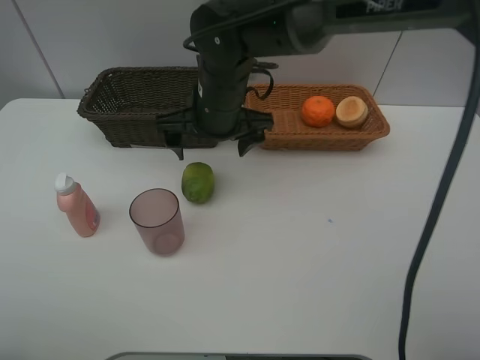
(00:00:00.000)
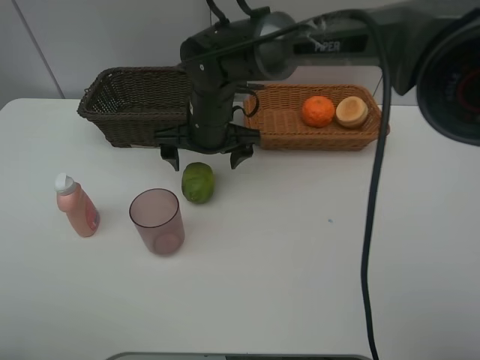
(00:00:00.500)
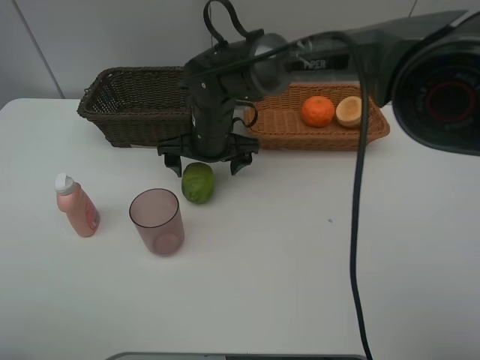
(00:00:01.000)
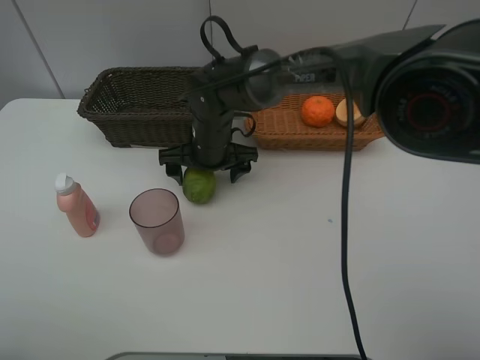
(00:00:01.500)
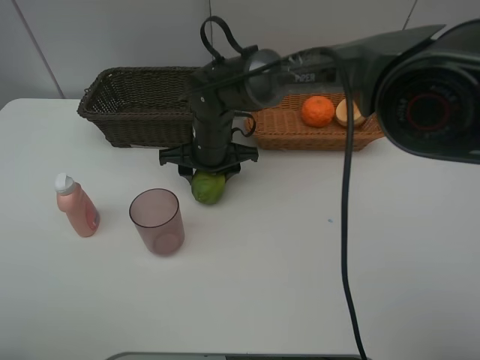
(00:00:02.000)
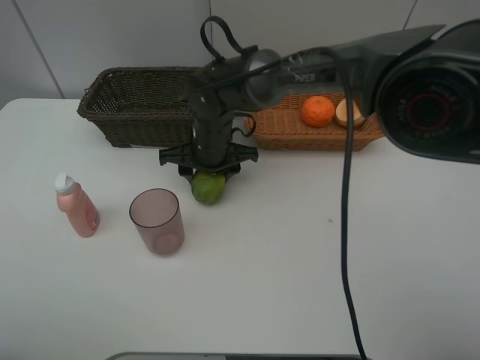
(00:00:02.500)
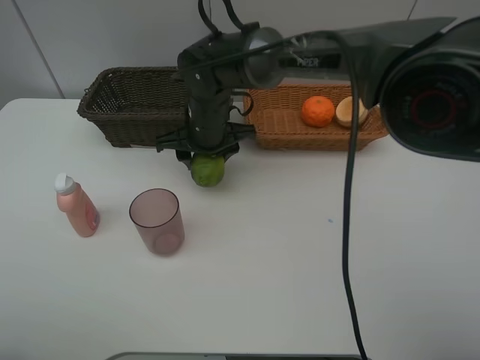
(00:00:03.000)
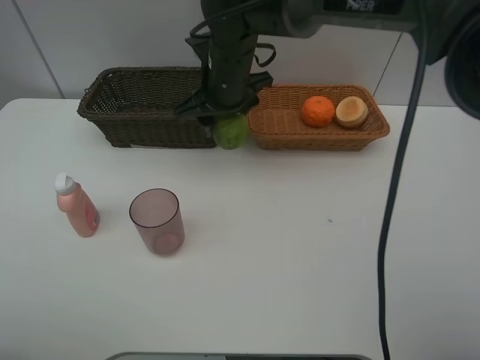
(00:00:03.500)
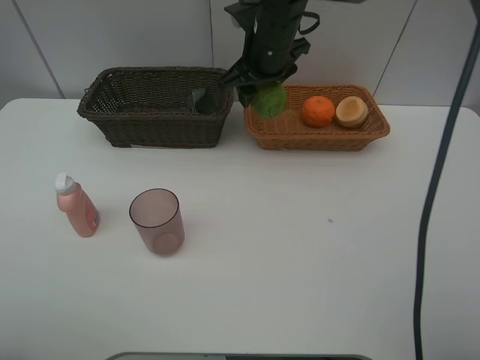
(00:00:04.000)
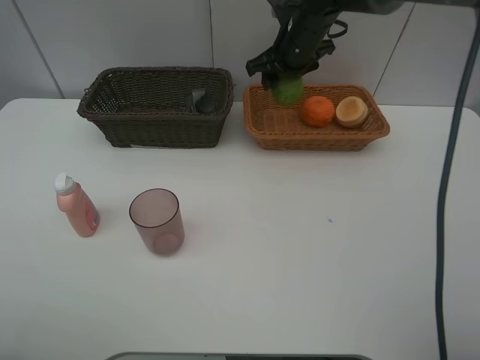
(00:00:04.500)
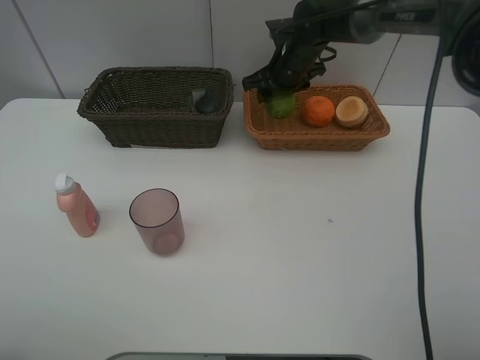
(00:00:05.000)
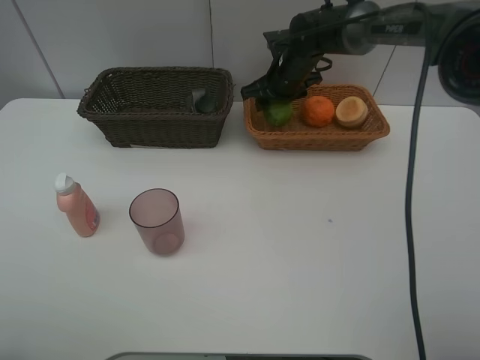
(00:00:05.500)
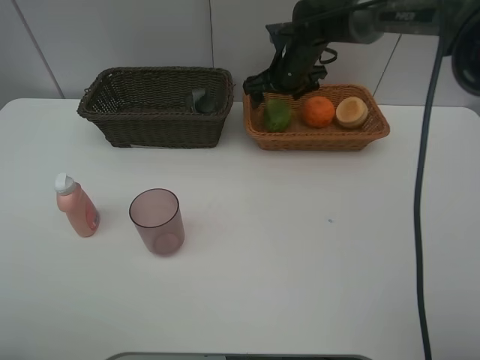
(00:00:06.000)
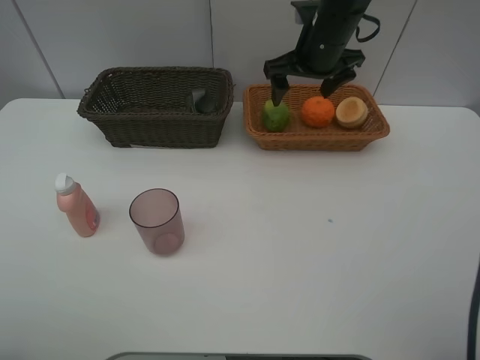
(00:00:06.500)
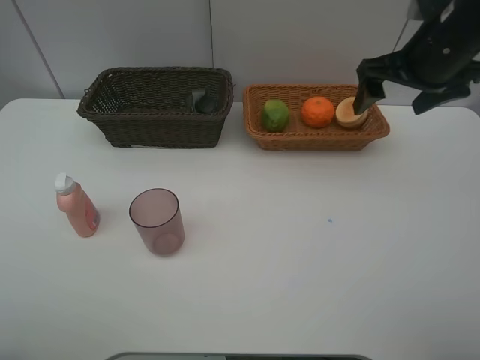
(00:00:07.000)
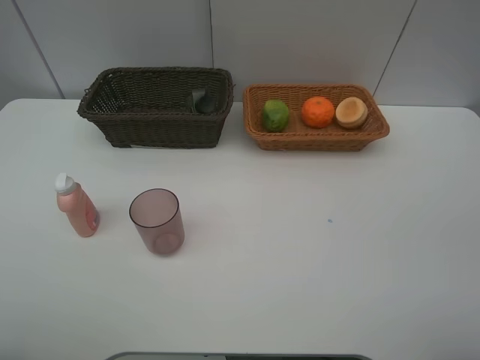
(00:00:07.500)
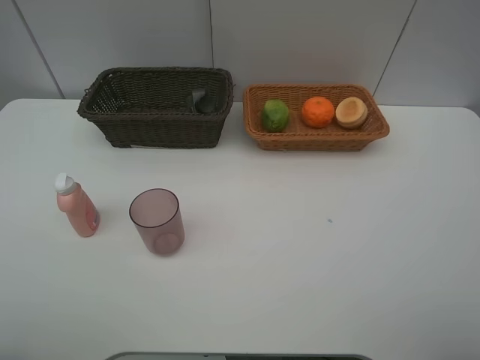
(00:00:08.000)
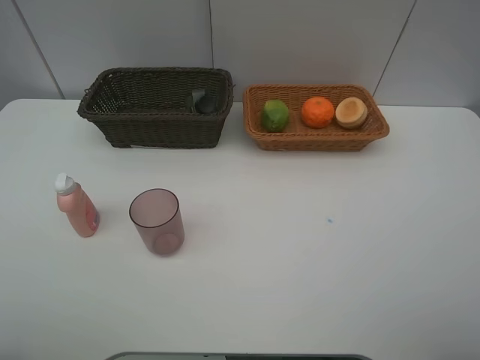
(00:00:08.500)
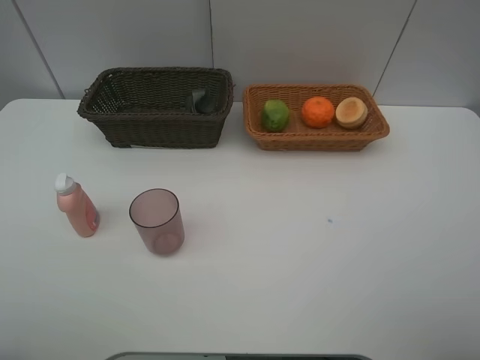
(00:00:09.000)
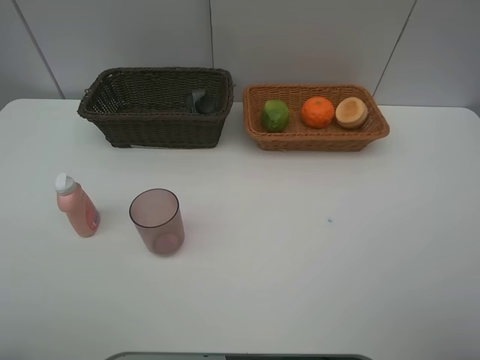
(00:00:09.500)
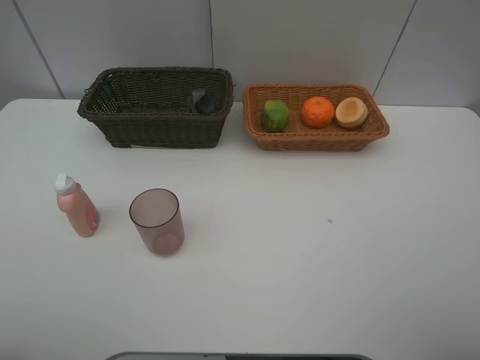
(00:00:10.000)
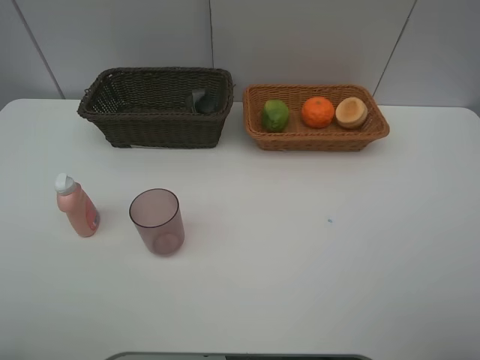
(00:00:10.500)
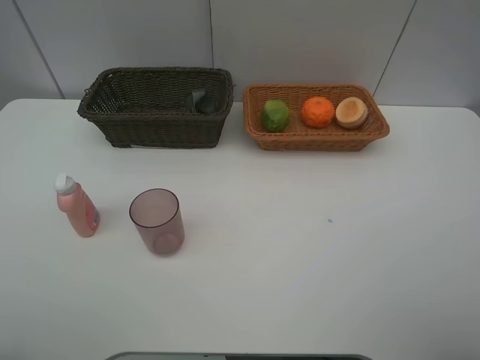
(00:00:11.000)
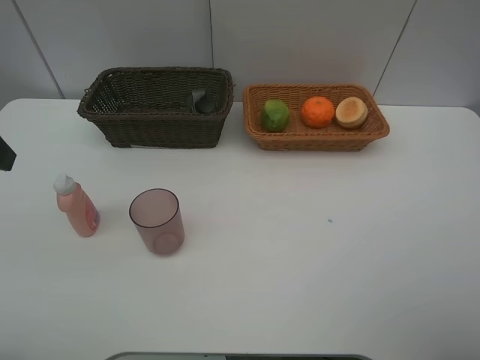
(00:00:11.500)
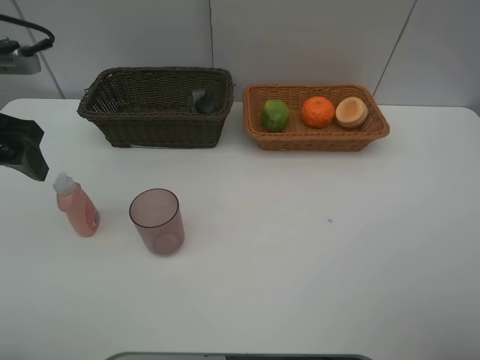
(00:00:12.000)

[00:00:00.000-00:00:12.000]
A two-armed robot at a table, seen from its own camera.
Task of the whole recording: place multiple objects separately in different baskets.
00:00:00.000 to 00:00:02.000: The right gripper travels downward by approximately 10 cm, and closes.
00:00:02.000 to 00:00:04.000: The right gripper moves upward, to the right and forward, roughly 15 cm.
00:00:04.000 to 00:00:06.000: The right gripper travels forward and downward by roughly 10 cm, and opens.
00:00:06.000 to 00:00:08.000: The right gripper moves backward, to the right and upward, some 50 cm.
00:00:10.000 to 00:00:12.000: The left gripper moves forward, about 25 cm.

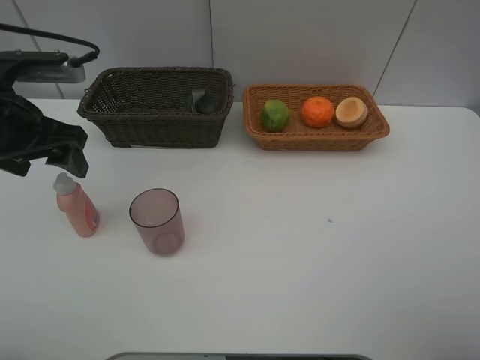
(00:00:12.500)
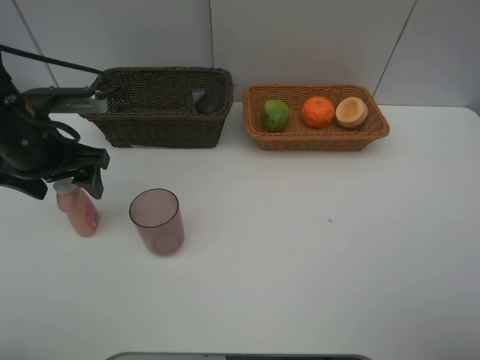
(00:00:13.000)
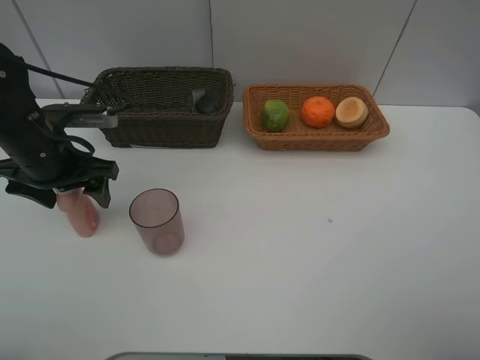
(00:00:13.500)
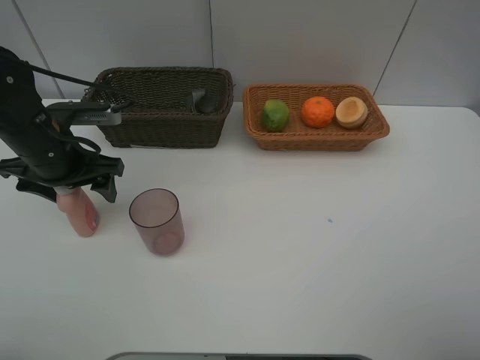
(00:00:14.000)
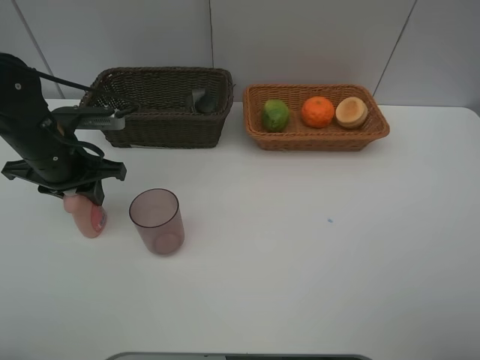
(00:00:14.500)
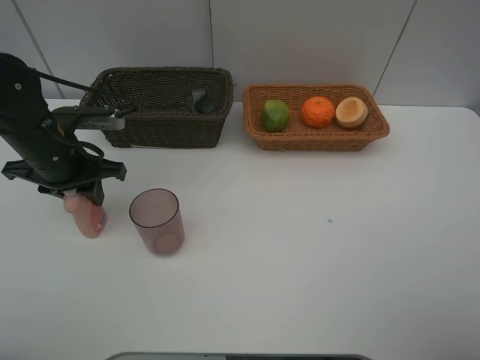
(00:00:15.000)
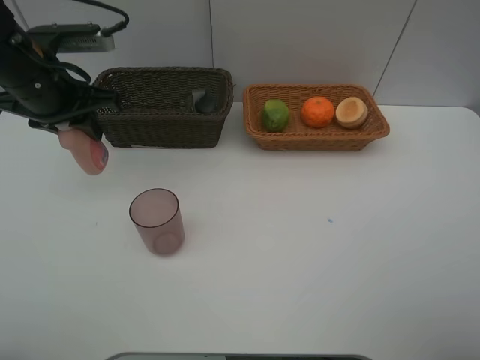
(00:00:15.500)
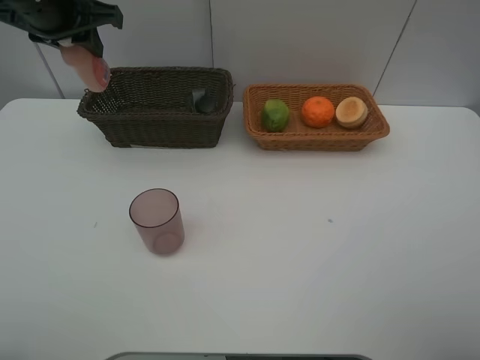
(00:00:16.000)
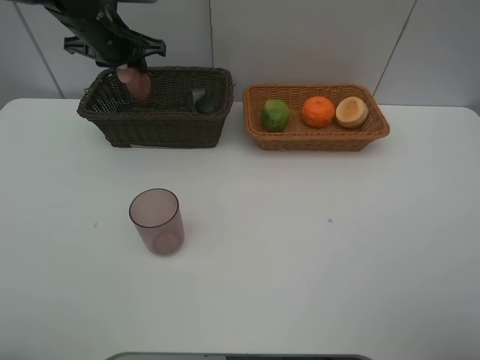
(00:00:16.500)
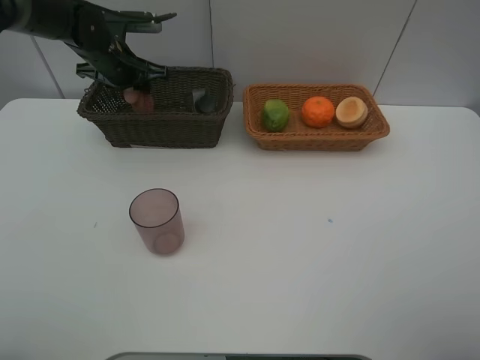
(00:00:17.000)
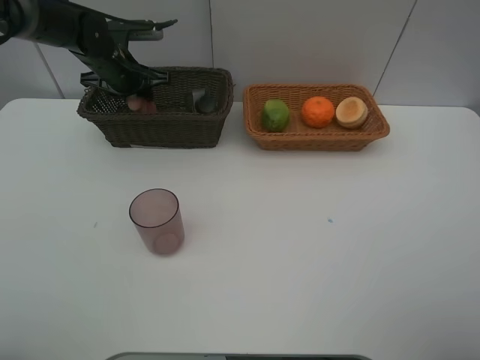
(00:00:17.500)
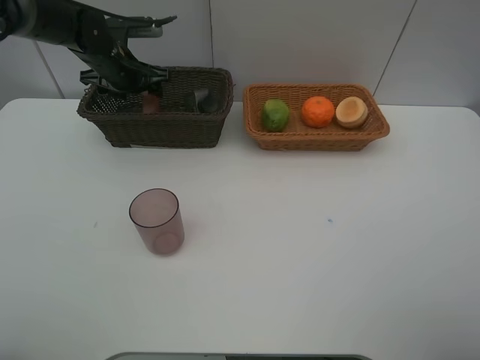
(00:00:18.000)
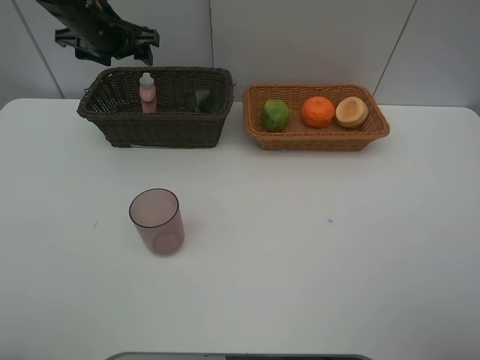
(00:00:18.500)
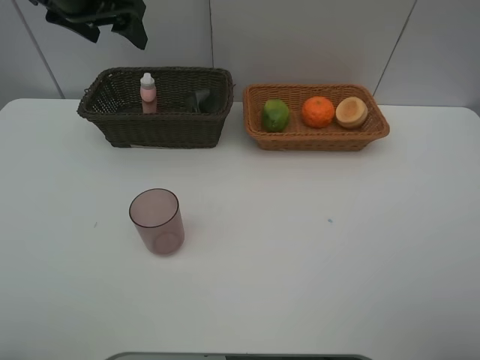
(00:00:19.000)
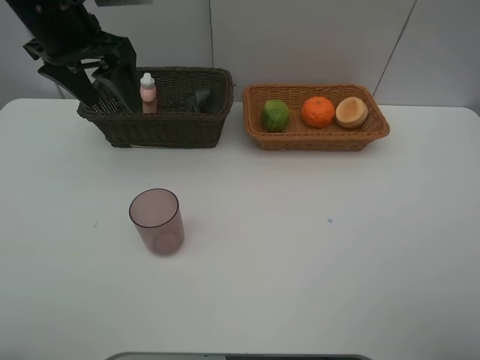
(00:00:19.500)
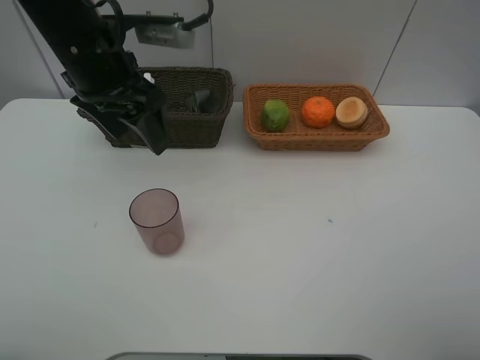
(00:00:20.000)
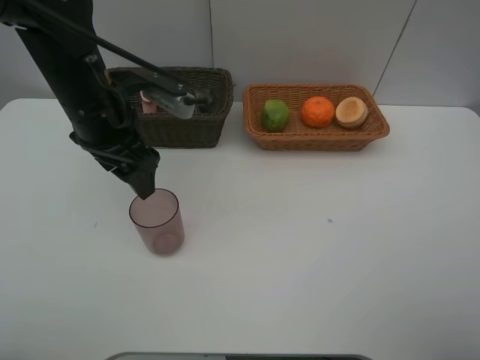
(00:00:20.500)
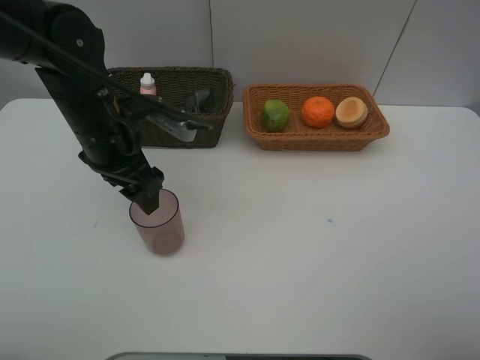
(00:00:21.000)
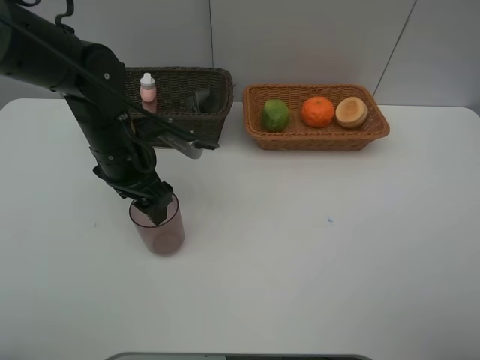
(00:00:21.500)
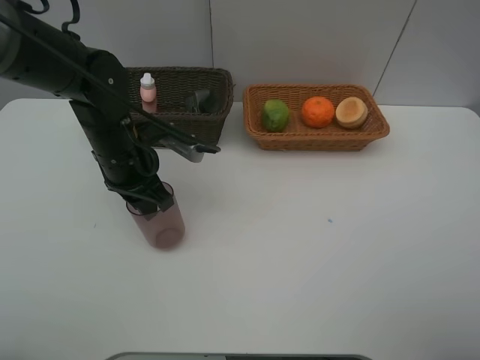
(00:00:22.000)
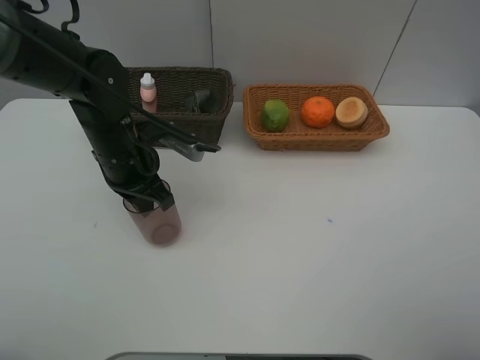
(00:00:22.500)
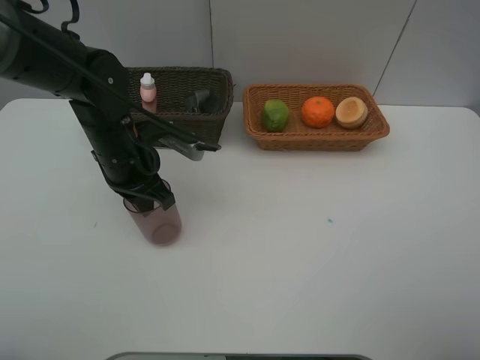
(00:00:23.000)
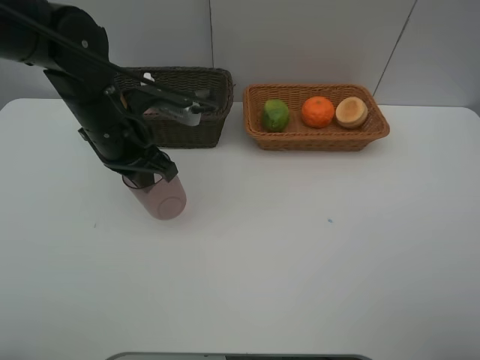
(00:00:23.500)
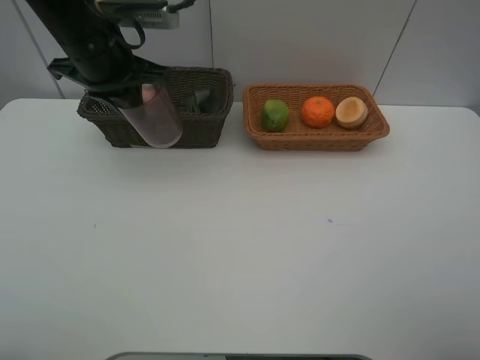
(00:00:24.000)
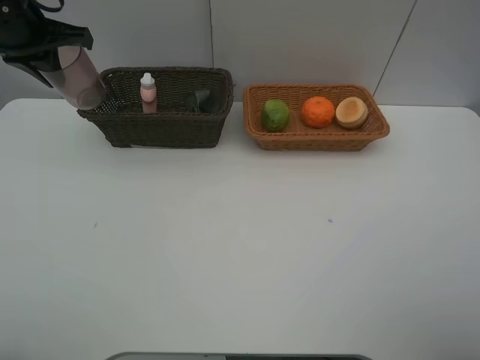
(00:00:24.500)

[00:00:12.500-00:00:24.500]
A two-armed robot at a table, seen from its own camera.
Task of the whole recording: place multiple objects separately in different baskets.
00:00:12.500 to 00:00:14.500: The left gripper heads downward, covering about 10 cm, and closes up.
00:00:14.500 to 00:00:16.500: The left gripper moves forward and upward, some 20 cm.
00:00:16.500 to 00:00:18.500: The left gripper travels downward and back again, some 5 cm each way, and opens.
00:00:18.500 to 00:00:20.500: The left gripper is displaced backward by some 15 cm.
00:00:20.500 to 00:00:22.500: The left gripper is displaced downward by roughly 10 cm, and closes.
00:00:22.500 to 00:00:24.500: The left gripper goes roughly 20 cm upward, to the left and forward.

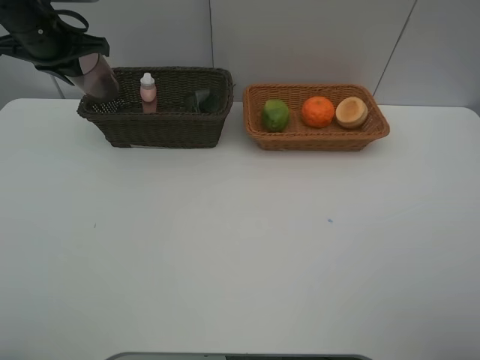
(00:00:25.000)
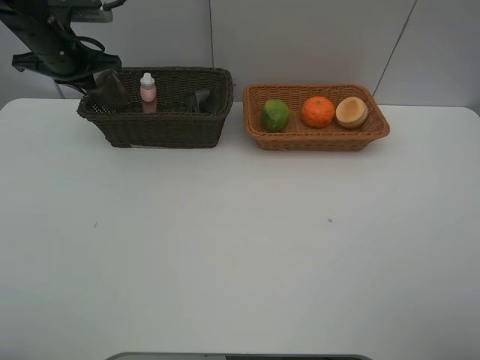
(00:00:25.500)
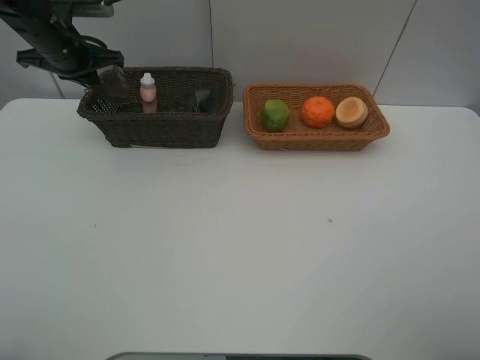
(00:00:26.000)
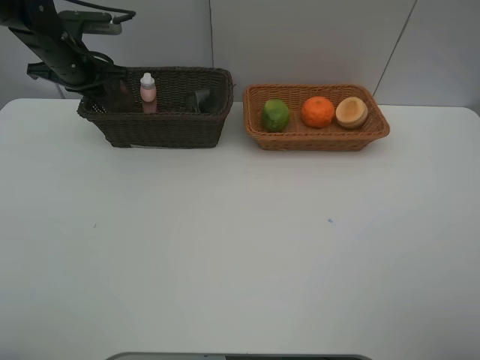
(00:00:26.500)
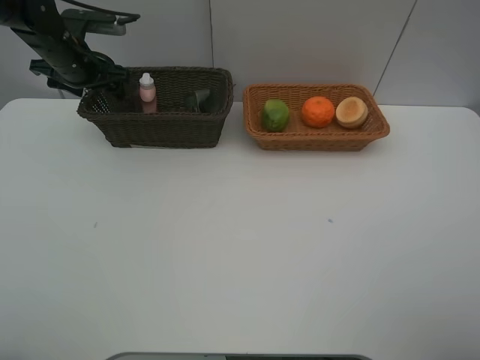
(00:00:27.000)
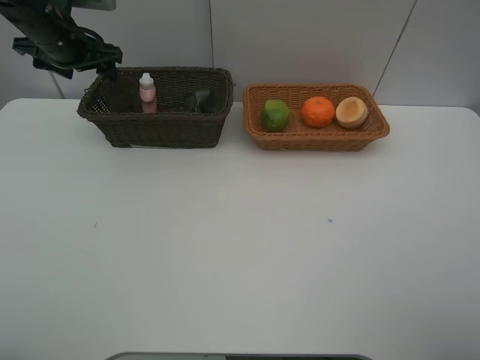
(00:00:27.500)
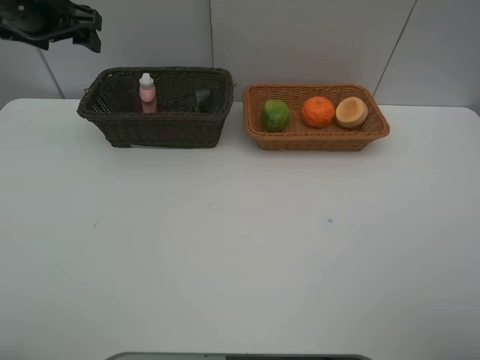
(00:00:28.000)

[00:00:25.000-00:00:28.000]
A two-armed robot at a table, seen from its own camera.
Task of the whole recording: place multiple objects separately in different baskets.
00:00:25.000 to 00:00:26.500: The left gripper shifts some 5 cm downward.
00:00:26.500 to 00:00:28.000: The left gripper moves upward and backward, roughly 10 cm, and opens up.
